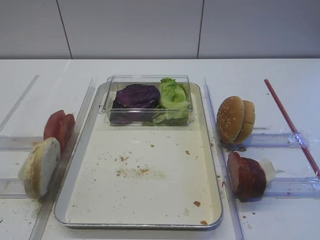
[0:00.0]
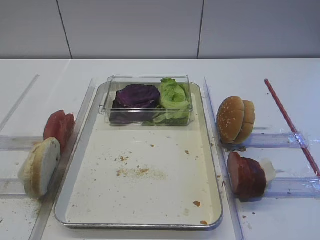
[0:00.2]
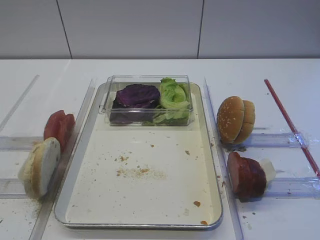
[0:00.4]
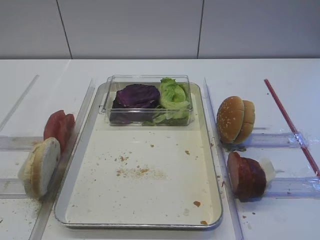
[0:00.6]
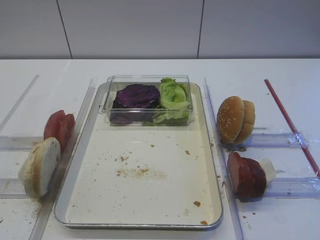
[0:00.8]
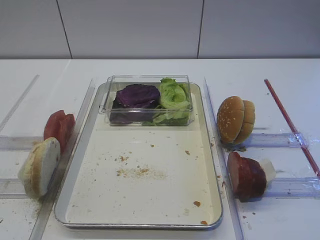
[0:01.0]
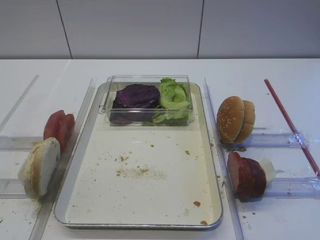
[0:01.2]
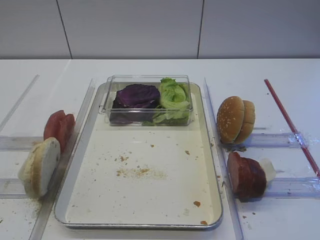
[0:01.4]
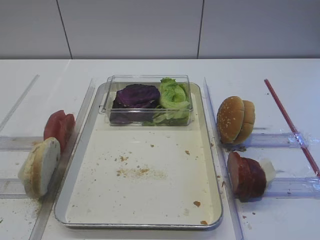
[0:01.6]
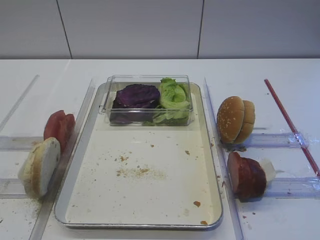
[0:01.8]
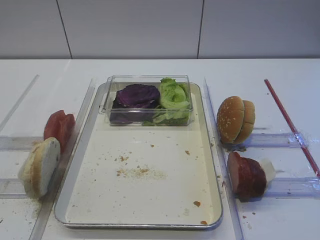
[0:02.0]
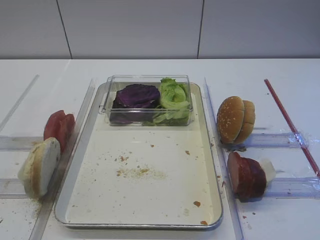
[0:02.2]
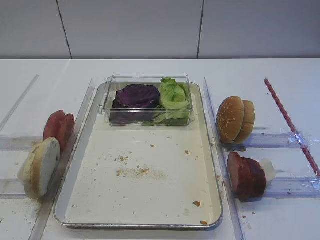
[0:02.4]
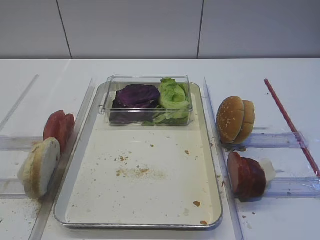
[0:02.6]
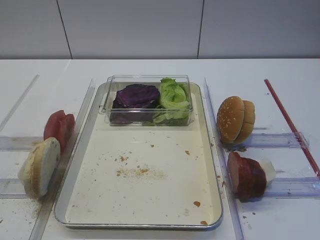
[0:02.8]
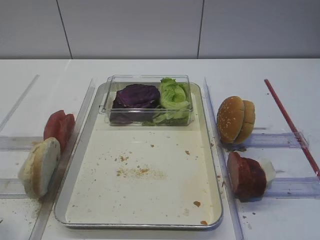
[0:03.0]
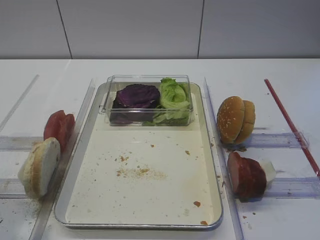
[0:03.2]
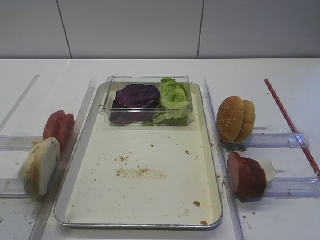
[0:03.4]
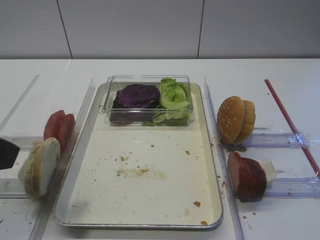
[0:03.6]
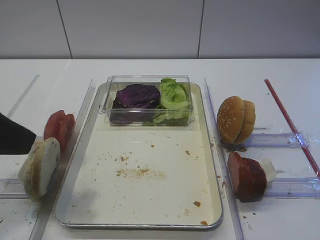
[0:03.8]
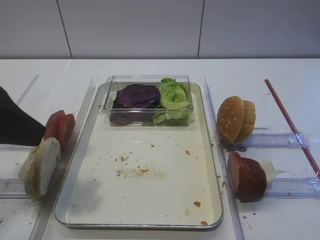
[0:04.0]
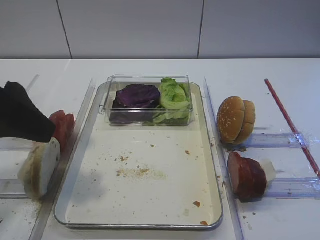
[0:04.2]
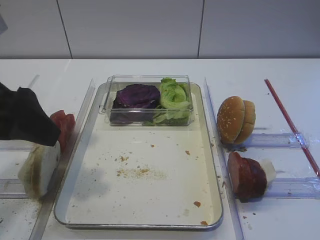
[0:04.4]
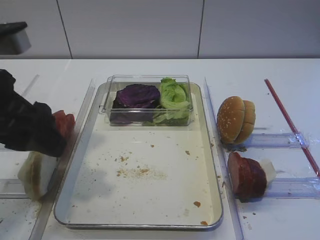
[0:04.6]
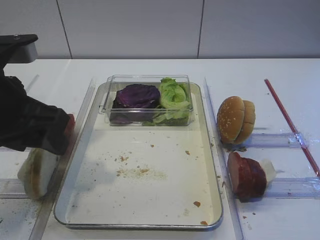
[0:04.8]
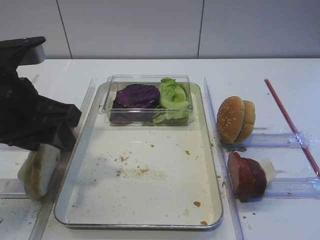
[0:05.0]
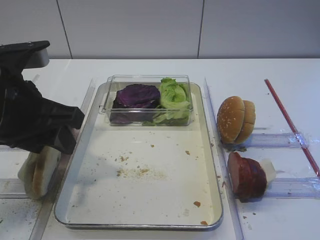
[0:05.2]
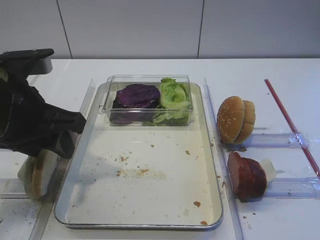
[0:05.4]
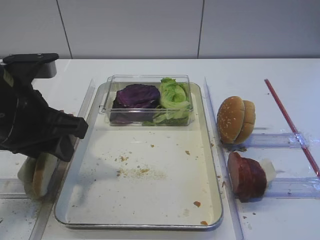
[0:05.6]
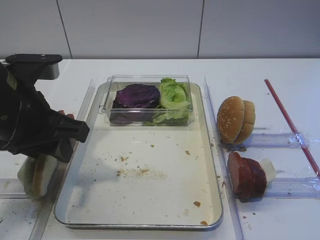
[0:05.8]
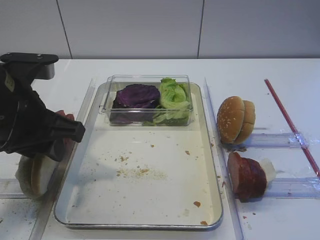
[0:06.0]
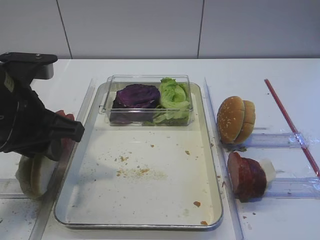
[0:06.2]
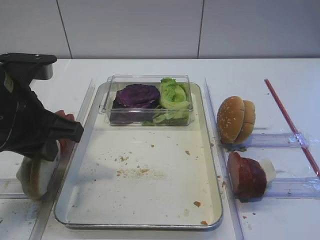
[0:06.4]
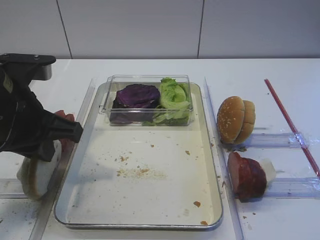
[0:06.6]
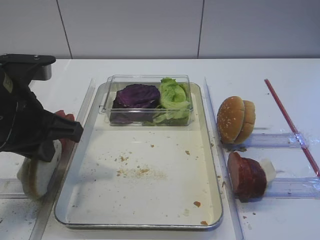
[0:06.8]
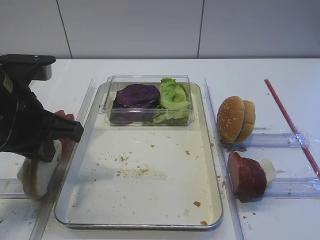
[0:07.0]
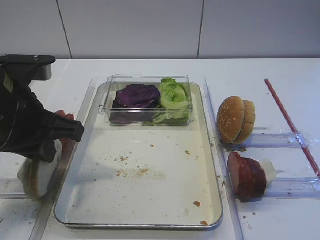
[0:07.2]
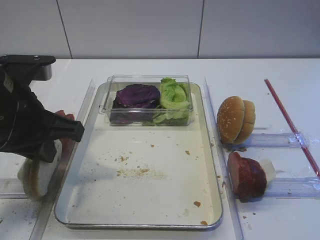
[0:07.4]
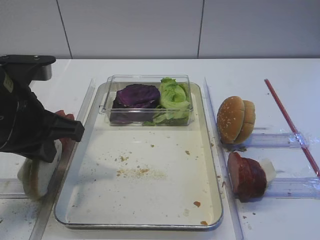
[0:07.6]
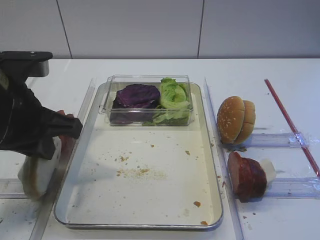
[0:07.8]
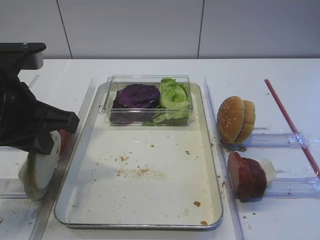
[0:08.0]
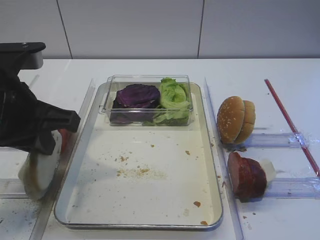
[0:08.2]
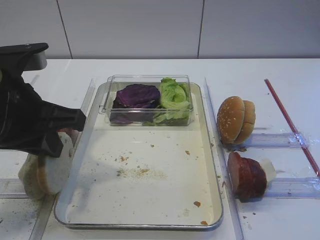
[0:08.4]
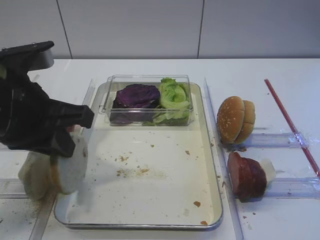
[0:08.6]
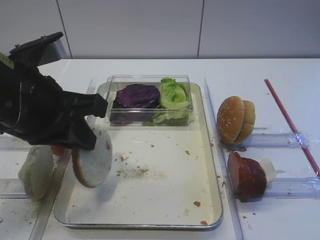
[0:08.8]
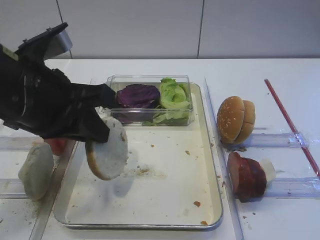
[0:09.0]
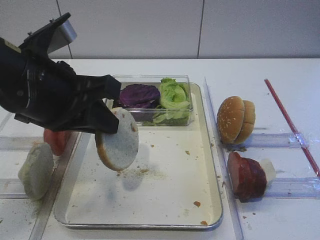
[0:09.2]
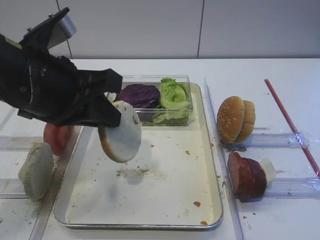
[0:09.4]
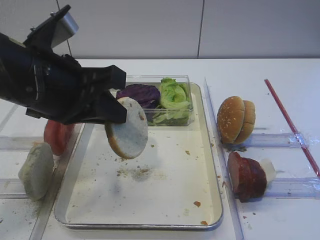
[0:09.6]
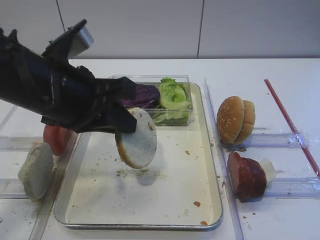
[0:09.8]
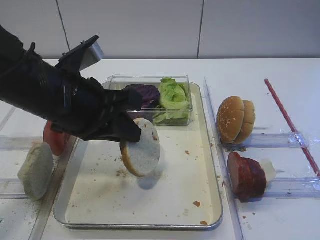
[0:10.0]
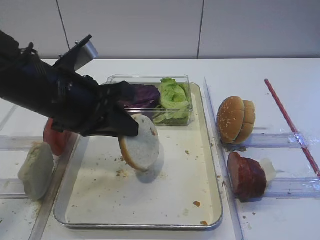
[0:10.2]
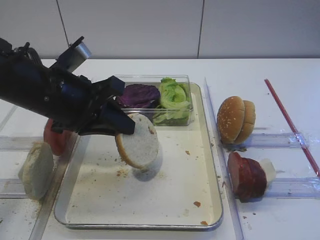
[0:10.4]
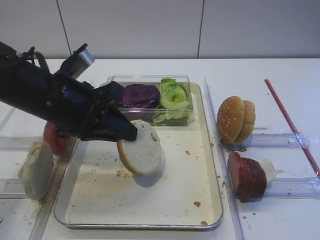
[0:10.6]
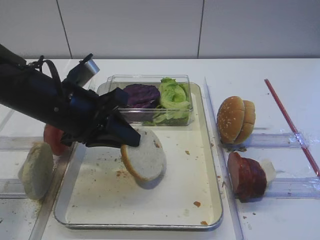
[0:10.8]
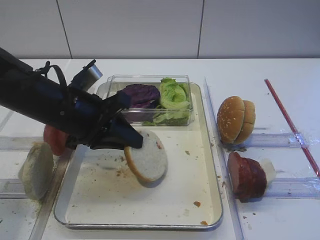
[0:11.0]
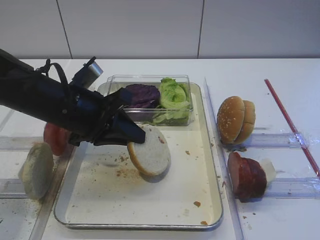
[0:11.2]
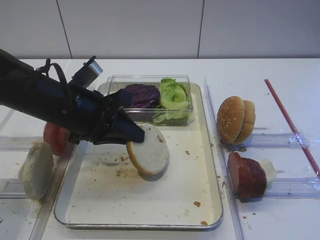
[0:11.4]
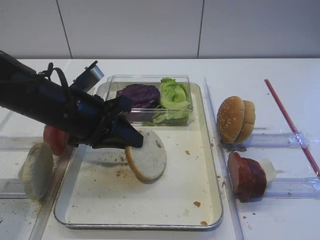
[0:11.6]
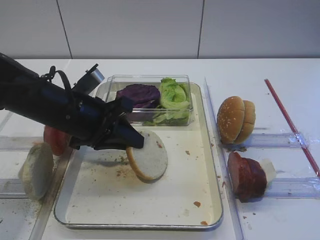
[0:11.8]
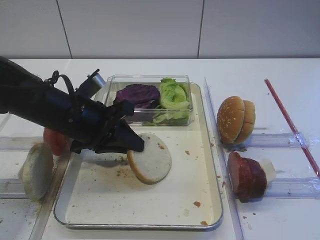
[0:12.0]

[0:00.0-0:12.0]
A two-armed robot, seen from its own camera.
Step, 0:00.0 to 0:08.2: Pick up the bread slice with the left gripper.
0:03.0 to 0:04.4: The left gripper shifts some 15 cm forward and to the right.
0:04.4 to 0:06.0: The left gripper travels downward by some 5 cm, and closes up.
0:06.0 to 0:07.6: The left gripper closes.
0:09.0 to 0:10.4: The left gripper shifts by about 5 cm.
0:10.4 to 0:12.0: The left gripper moves downward, about 5 cm.

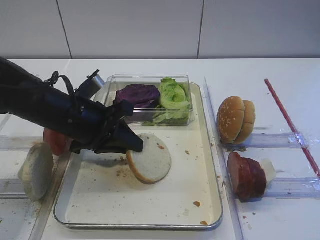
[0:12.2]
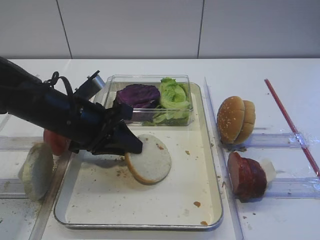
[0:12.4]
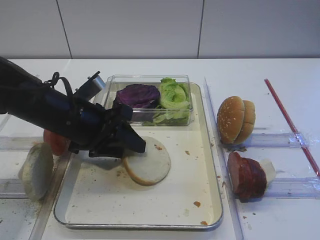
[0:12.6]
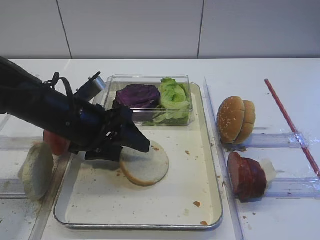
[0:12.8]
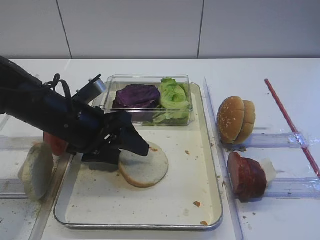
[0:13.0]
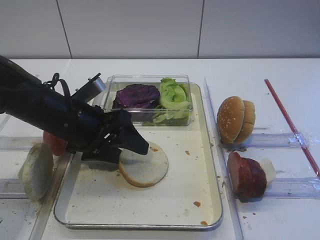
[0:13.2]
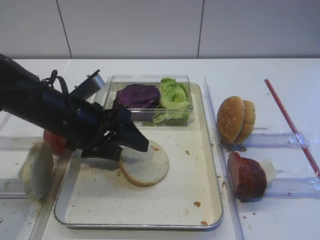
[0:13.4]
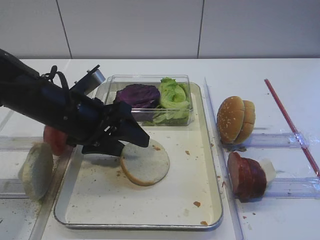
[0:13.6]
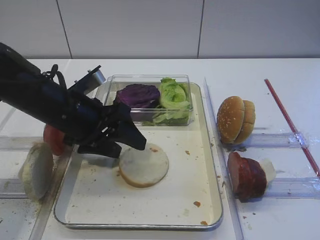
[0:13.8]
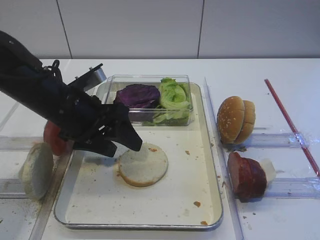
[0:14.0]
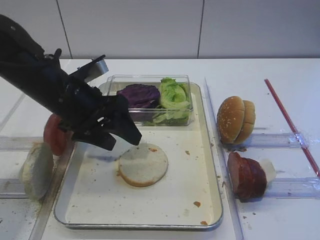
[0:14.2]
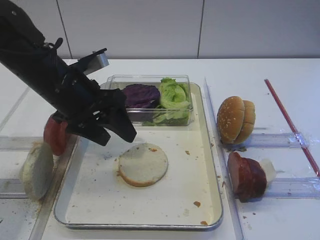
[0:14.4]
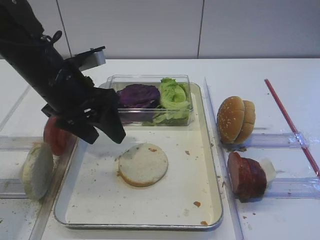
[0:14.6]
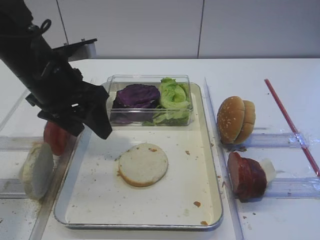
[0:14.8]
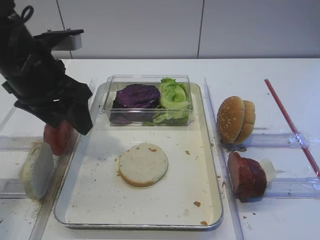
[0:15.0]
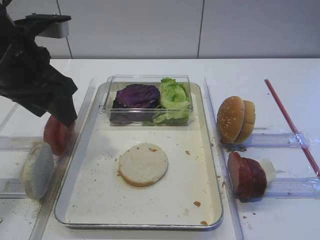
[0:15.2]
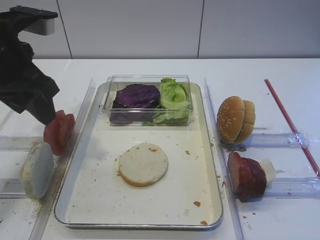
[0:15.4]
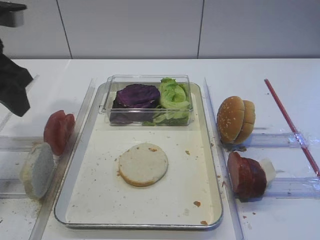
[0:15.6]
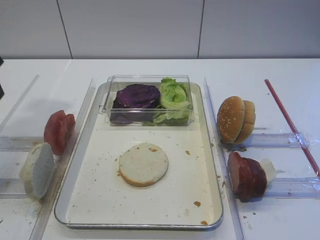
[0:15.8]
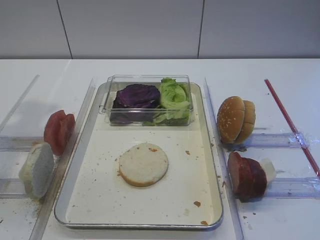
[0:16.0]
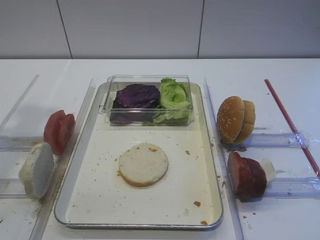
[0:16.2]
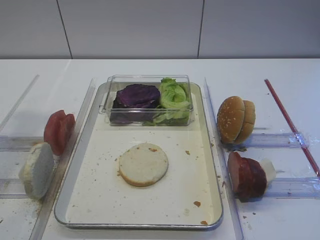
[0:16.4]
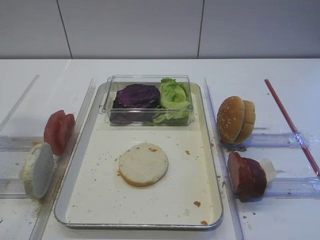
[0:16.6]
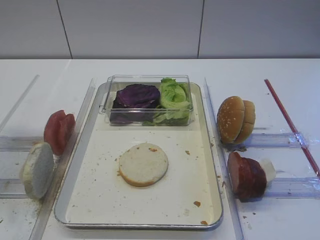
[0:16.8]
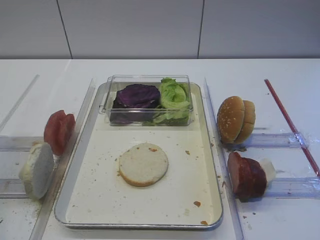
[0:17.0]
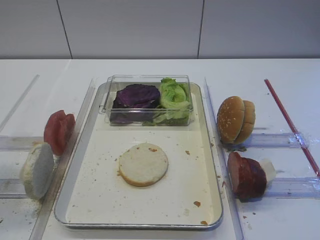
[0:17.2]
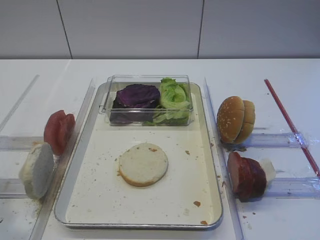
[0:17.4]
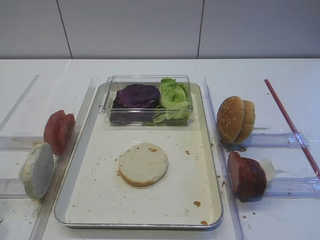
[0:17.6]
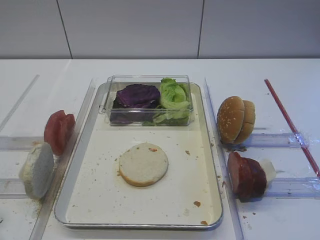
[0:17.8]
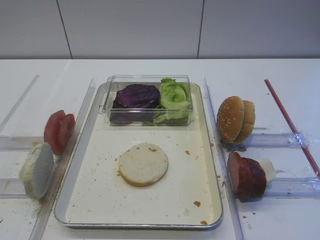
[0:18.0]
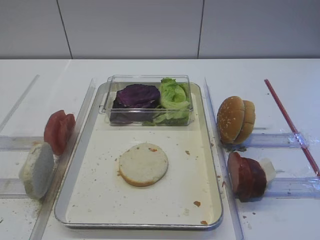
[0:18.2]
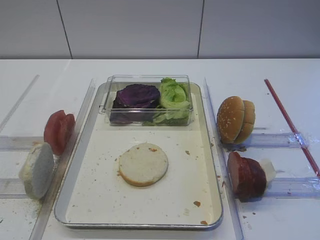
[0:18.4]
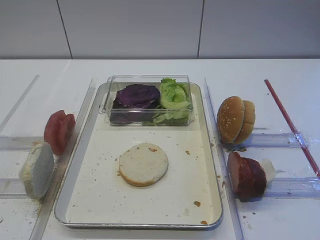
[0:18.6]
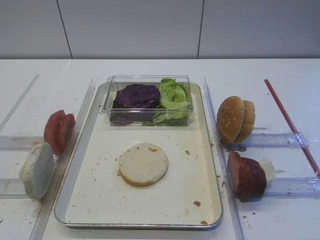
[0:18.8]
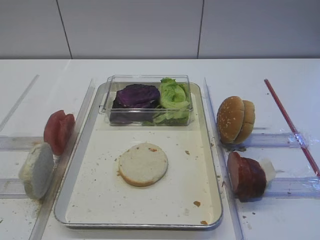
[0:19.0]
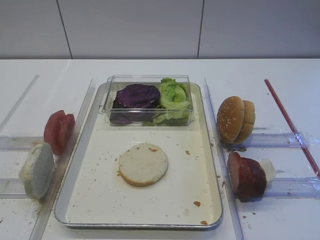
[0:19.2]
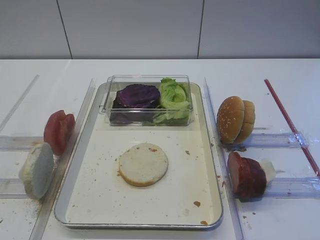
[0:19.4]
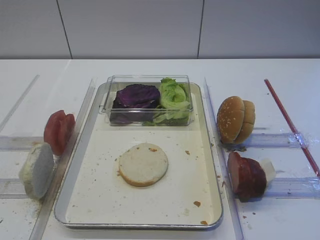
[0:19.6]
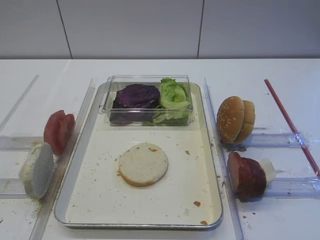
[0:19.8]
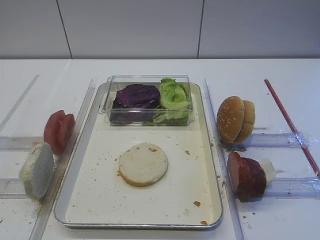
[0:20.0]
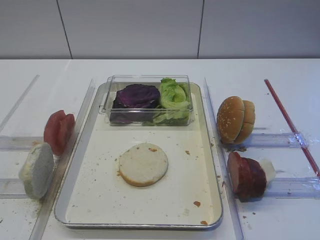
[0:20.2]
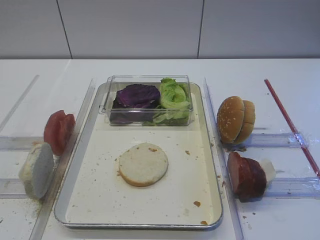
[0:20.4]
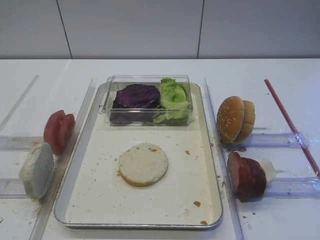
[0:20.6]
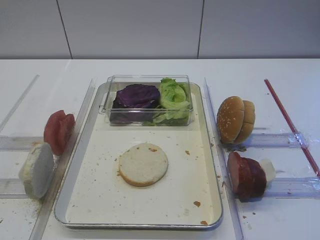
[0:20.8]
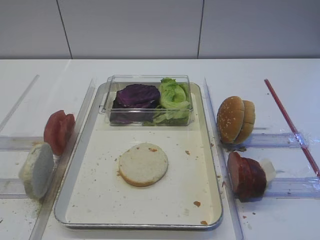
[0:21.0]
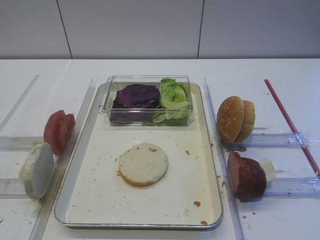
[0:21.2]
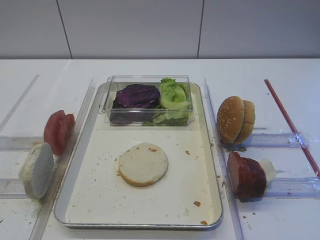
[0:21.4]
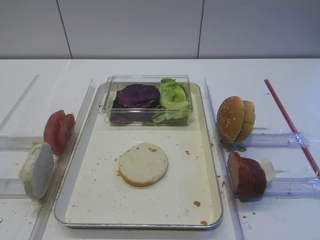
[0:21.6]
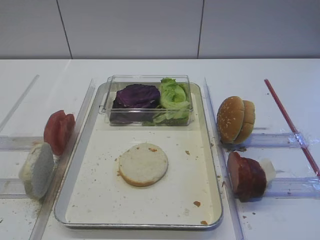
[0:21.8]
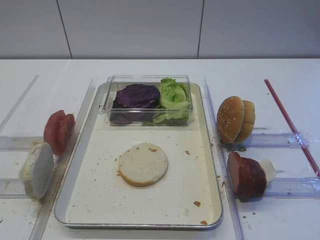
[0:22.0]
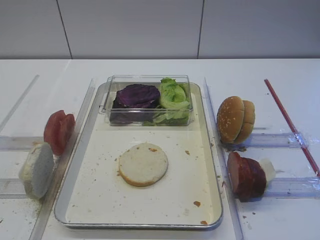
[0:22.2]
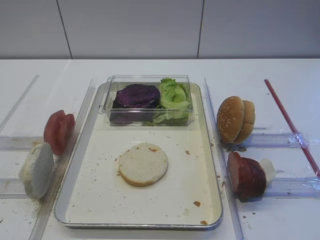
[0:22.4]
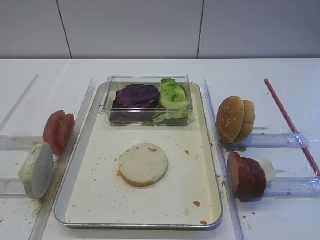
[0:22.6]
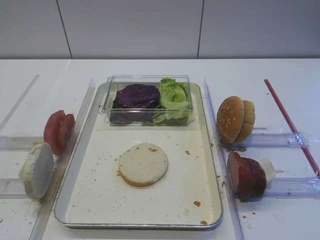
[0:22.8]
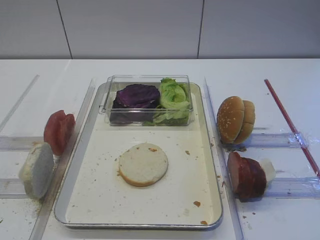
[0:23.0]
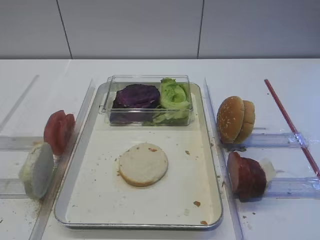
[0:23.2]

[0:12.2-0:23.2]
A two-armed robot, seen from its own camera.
Step, 0:12.2 to 0:14.4: Place the bread slice on the tray with the left gripper.
0:12.2 to 0:13.8: The left gripper opens up.
0:13.8 to 0:15.4: The left gripper shifts roughly 15 cm upward and to the left.
0:15.4 to 0:17.0: The left gripper shifts about 20 cm backward, upward and to the left.
0:17.0 to 0:18.4: The left gripper heads downward and backward, covering approximately 20 cm.
0:18.4 to 0:23.2: The two grippers keep their place.
